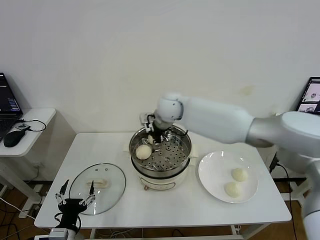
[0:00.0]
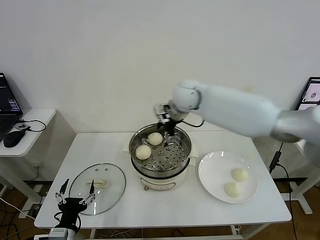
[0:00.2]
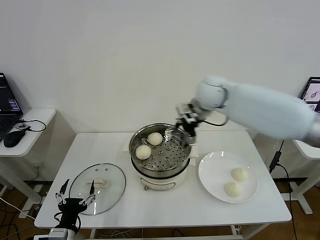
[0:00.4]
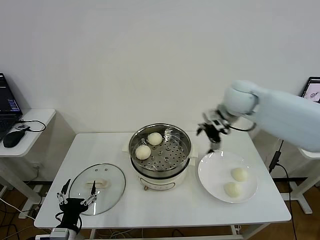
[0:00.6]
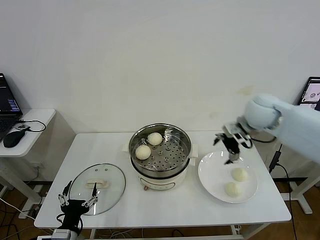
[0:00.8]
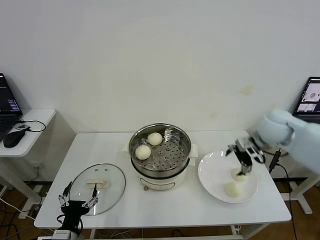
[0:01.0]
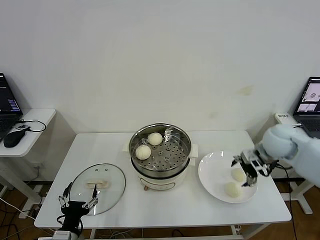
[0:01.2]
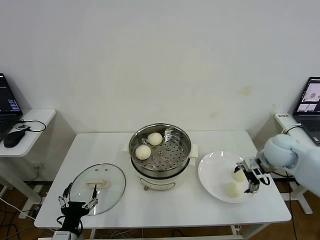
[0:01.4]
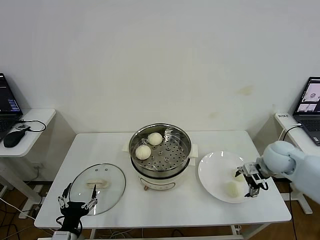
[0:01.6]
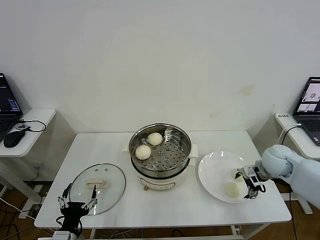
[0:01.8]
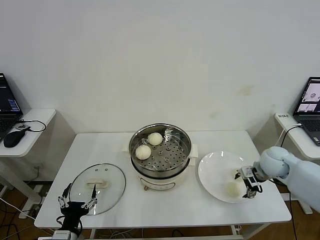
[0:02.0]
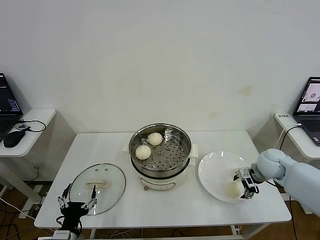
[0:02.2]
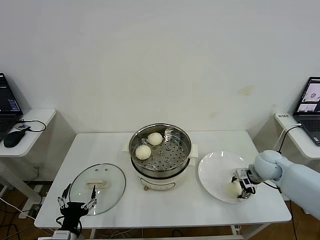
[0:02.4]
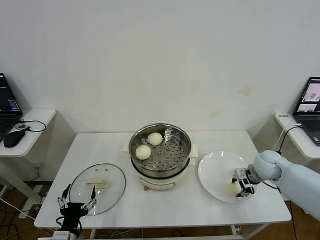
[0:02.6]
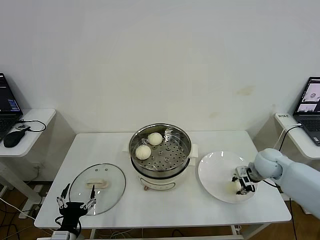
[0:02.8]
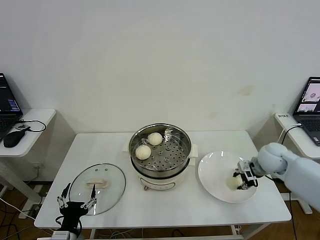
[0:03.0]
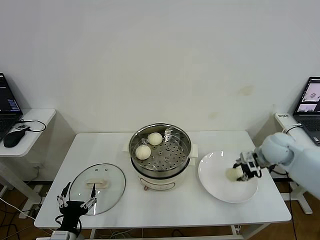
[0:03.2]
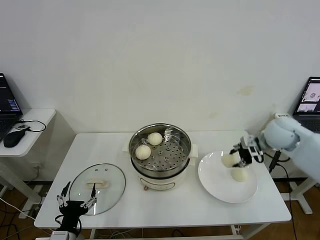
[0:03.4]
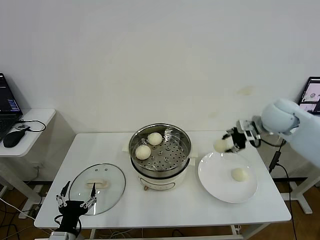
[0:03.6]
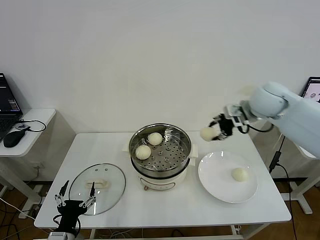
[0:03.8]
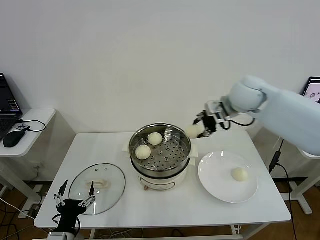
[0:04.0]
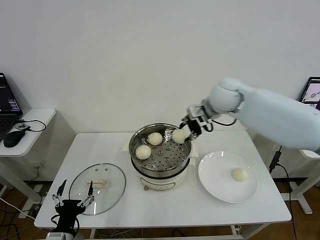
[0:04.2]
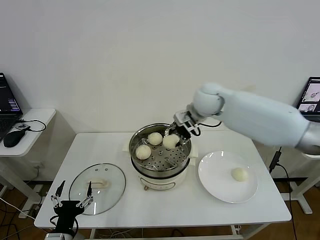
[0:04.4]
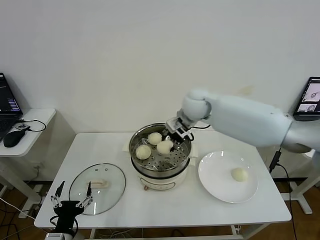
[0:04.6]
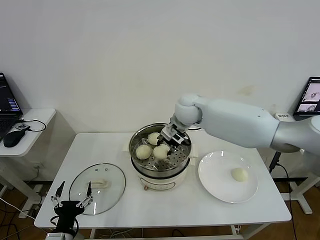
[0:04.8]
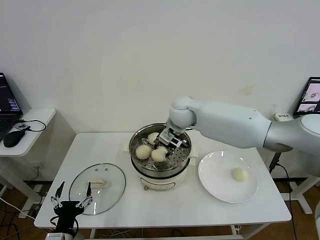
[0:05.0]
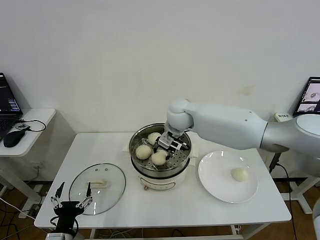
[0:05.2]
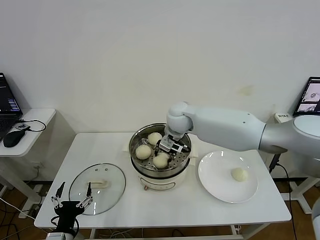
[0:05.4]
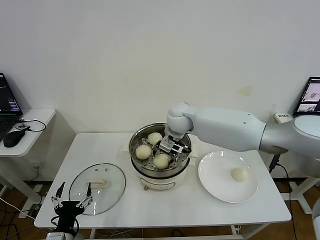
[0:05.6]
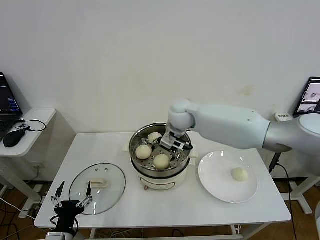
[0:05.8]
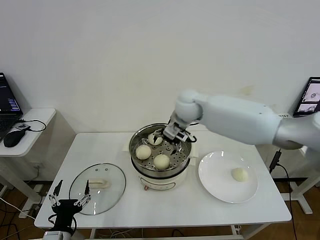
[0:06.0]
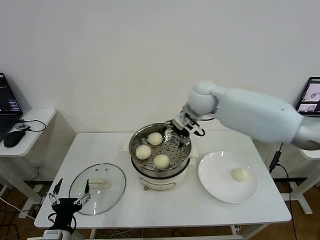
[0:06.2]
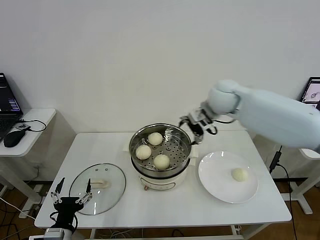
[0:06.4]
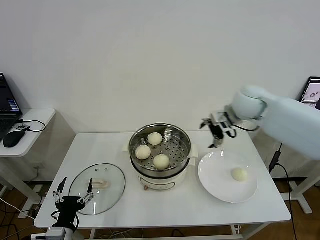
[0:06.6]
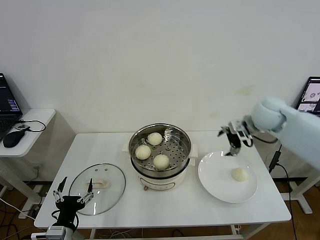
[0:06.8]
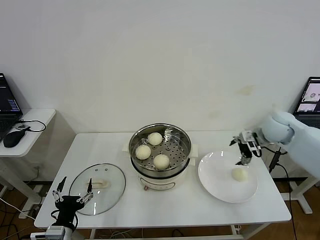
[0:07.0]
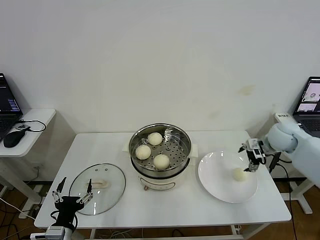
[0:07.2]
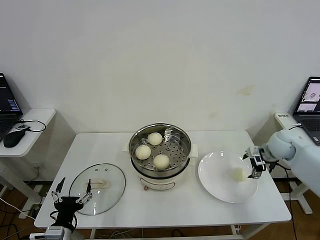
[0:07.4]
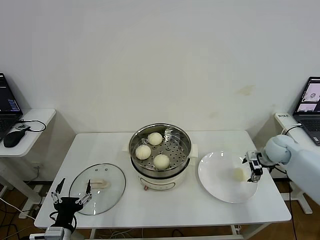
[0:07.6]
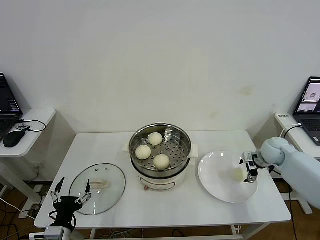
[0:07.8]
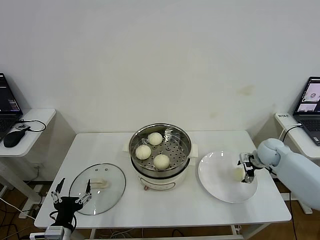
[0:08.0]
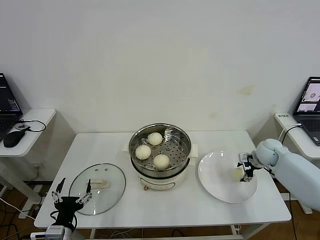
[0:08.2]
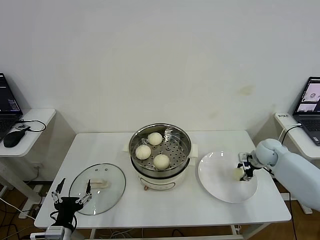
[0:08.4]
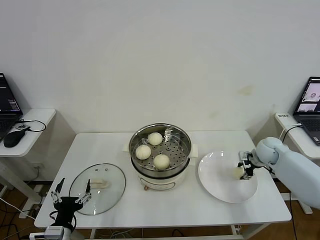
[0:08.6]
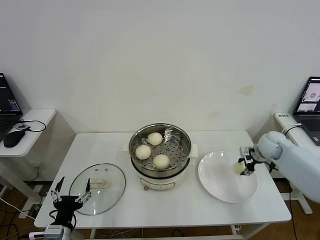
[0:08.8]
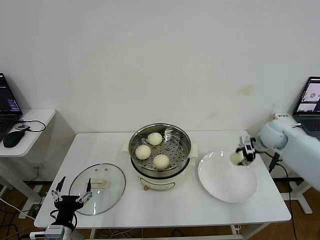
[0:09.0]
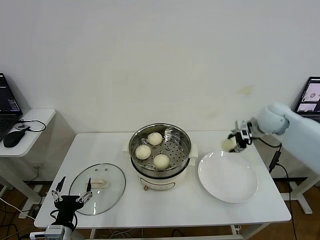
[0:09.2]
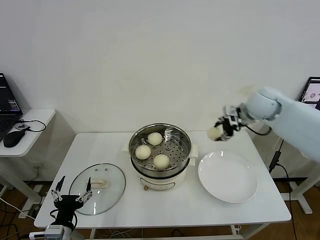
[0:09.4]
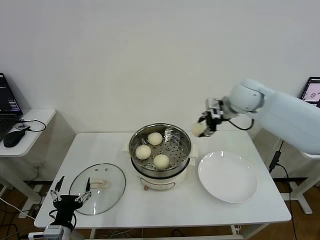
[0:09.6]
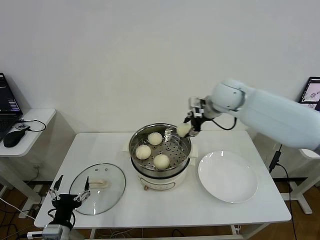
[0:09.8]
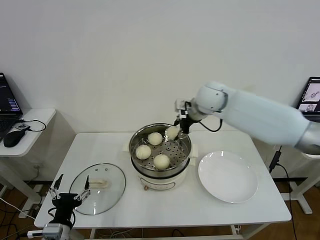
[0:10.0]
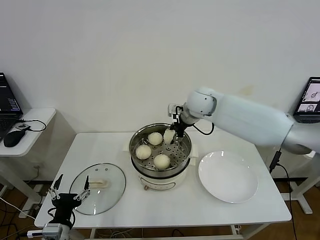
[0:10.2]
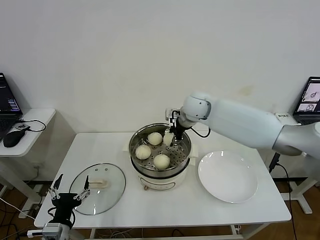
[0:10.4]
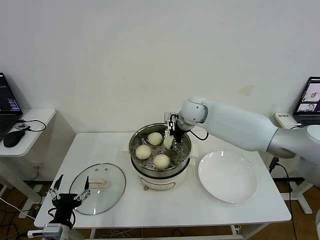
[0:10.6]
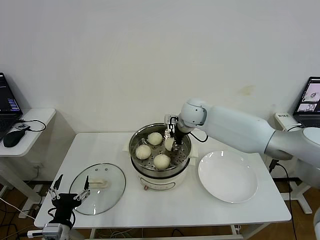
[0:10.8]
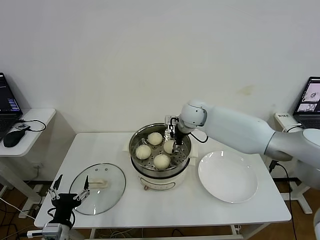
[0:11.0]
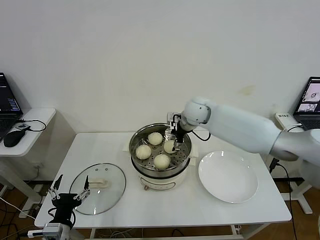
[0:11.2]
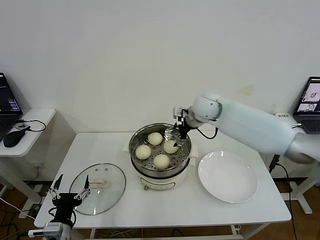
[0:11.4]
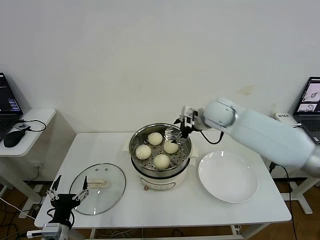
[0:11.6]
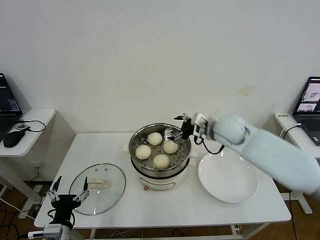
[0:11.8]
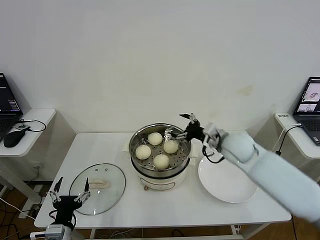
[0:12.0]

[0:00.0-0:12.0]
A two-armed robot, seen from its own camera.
Step, 0:00.0 to 0:02.6: Grasp the baozi in the plate with right gripper.
Step, 0:02.8 to 0:05.6: Place the baozi on the steamer with right gripper.
Step, 0:06.0 to 0:08.4: Grasp the baozi in the plate with right gripper.
Step, 0:08.6 to 0:11.0: Place the baozi on the steamer with right gripper.
0:00.0 to 0:01.6: The right gripper shifts roughly 35 cm to the right.
0:01.6 to 0:03.0: The right gripper closes its fingers.
0:03.0 to 0:04.4: The right gripper shifts some 30 cm to the left and upward.
0:04.4 to 0:06.0: The right gripper opens up.
0:06.0 to 0:07.6: The right gripper shifts some 35 cm to the right and downward.
0:07.6 to 0:09.0: The right gripper moves upward, approximately 5 cm, and closes up.
0:09.0 to 0:10.4: The right gripper heads to the left, covering some 25 cm.
0:10.4 to 0:12.0: The right gripper moves backward, to the right and downward, approximately 20 cm, and opens.

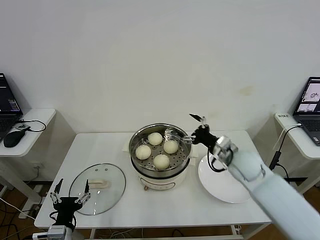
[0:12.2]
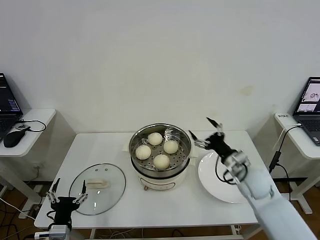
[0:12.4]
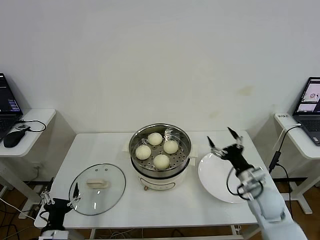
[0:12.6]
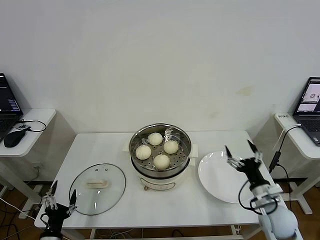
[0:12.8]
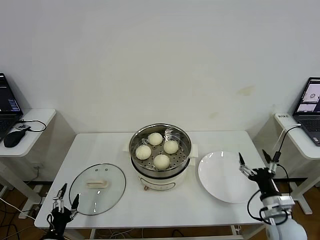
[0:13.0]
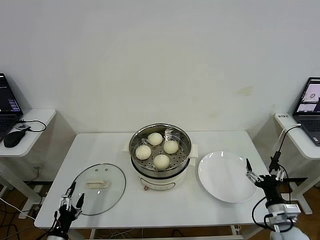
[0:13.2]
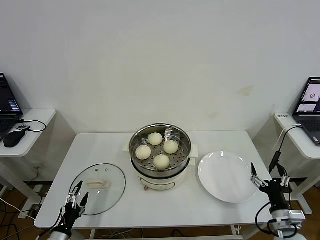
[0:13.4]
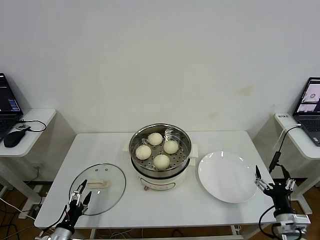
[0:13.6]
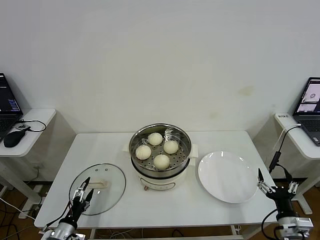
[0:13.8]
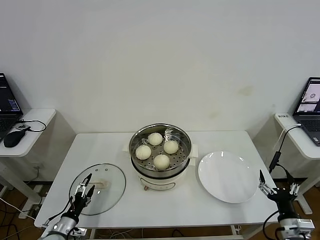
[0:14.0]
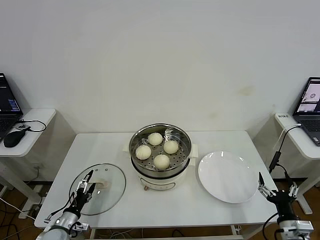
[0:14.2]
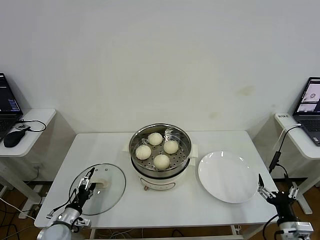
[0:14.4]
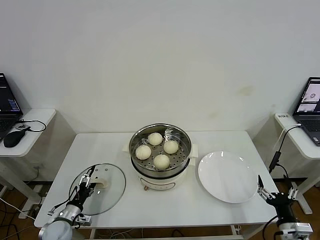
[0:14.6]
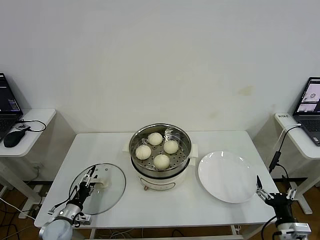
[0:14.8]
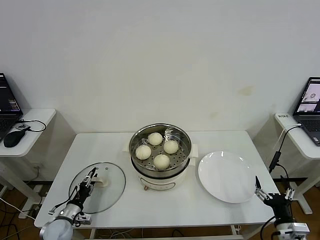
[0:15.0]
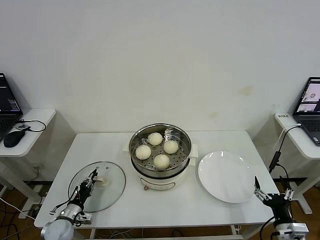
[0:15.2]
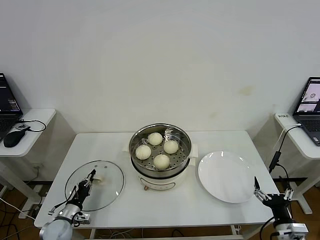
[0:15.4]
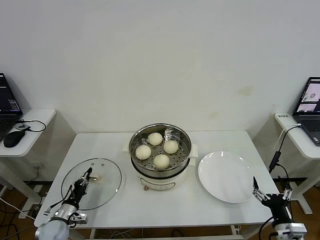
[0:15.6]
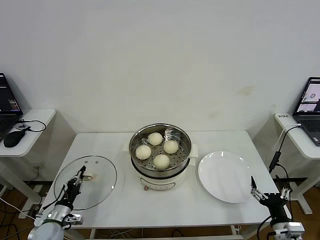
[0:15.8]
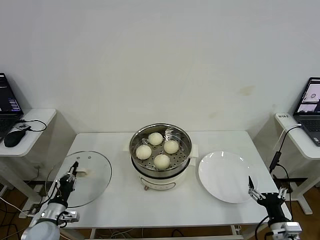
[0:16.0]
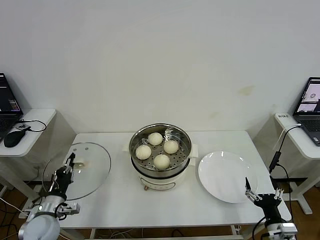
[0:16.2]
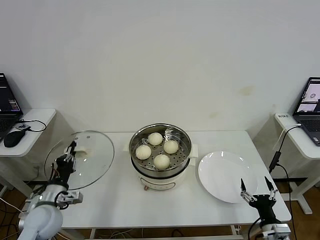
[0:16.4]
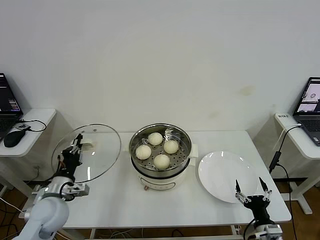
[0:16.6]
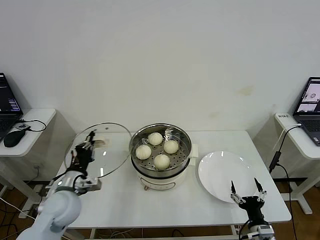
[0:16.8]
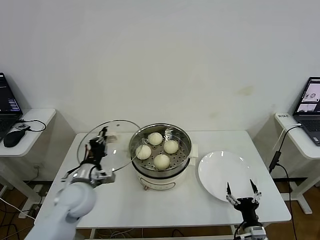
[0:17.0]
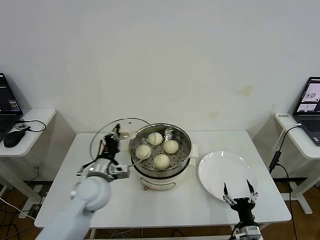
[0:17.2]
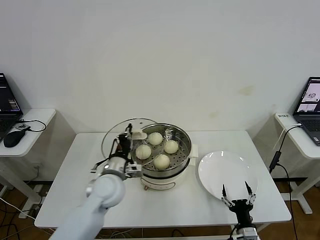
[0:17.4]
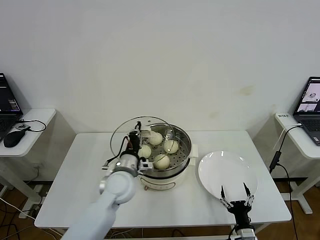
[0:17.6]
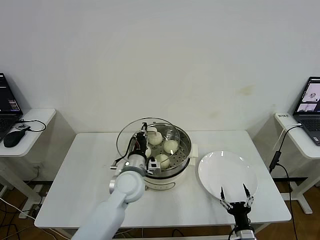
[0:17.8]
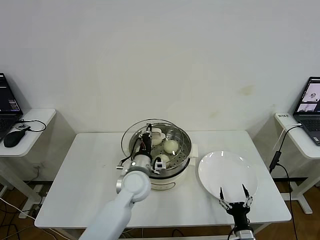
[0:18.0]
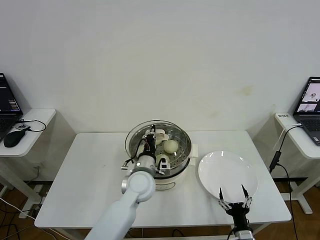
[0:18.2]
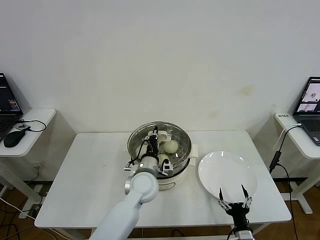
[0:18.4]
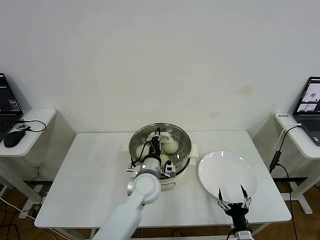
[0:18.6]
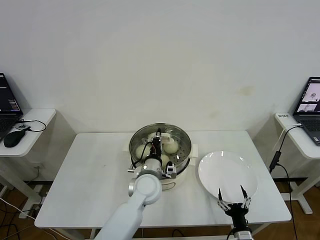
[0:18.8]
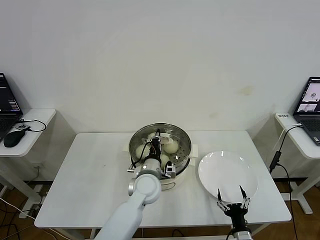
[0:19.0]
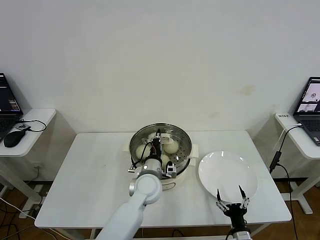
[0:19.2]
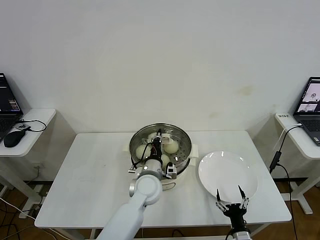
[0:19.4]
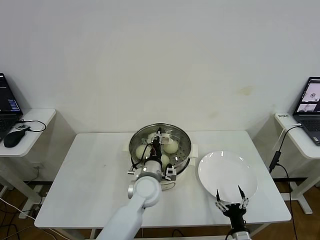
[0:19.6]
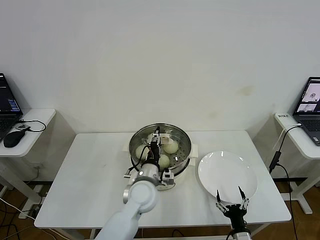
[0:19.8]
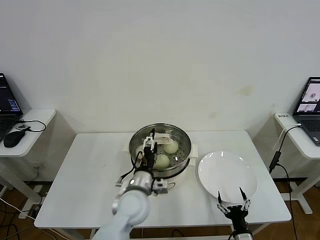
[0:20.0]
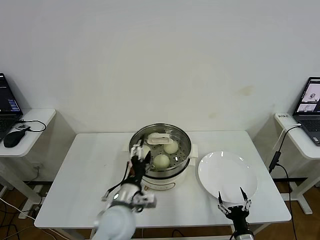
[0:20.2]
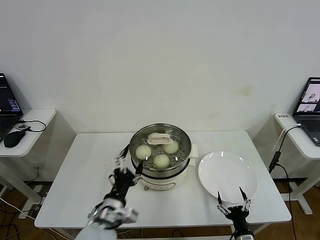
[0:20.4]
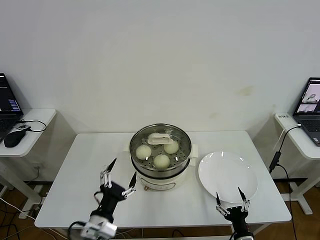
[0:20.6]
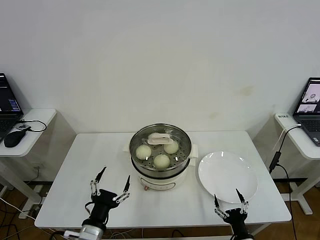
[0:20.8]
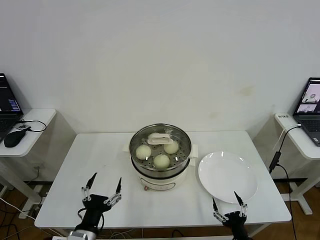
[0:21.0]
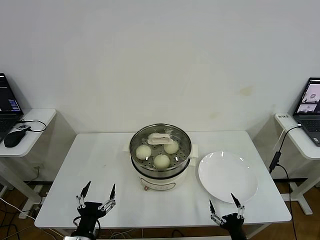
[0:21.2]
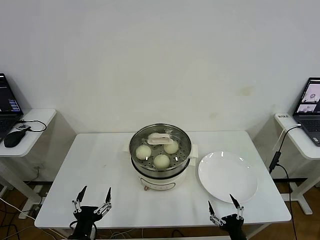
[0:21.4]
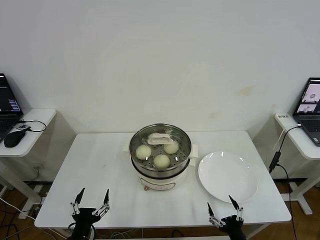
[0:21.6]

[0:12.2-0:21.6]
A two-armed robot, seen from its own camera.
Step, 0:12.2 to 0:15.4: Grasp the pot lid with left gripper.
Step, 0:15.8 to 0:19.6: Place the pot lid on the steamer with left gripper.
0:12.2 to 0:13.8: The left gripper goes approximately 15 cm downward and to the left, while the right gripper moves backward, to the right and downward, roughly 30 cm.
0:13.8 to 0:15.4: The left gripper shifts some 10 cm forward, and closes.
0:15.4 to 0:17.0: The left gripper shifts roughly 25 cm upward and to the right. Meanwhile the right gripper travels to the left and downward by roughly 10 cm.
0:17.0 to 0:18.4: The left gripper goes about 20 cm to the right.
0:18.4 to 0:20.0: The left gripper goes roughly 5 cm backward, and opens up.
0:20.0 to 0:21.6: The right gripper goes some 5 cm upward, while the left gripper moves backward and to the left, approximately 25 cm.
